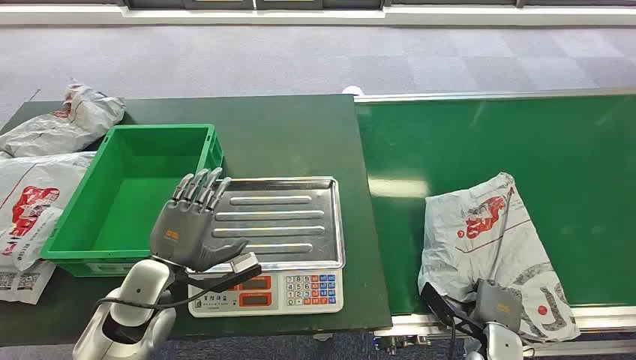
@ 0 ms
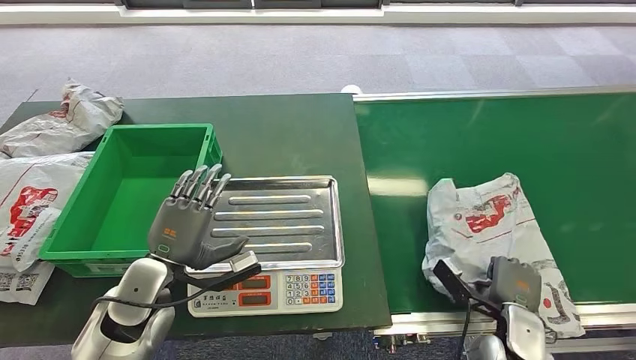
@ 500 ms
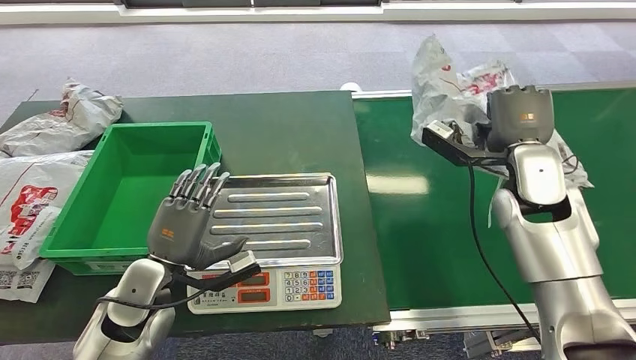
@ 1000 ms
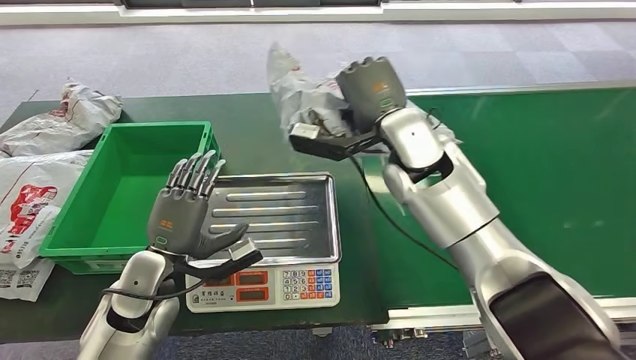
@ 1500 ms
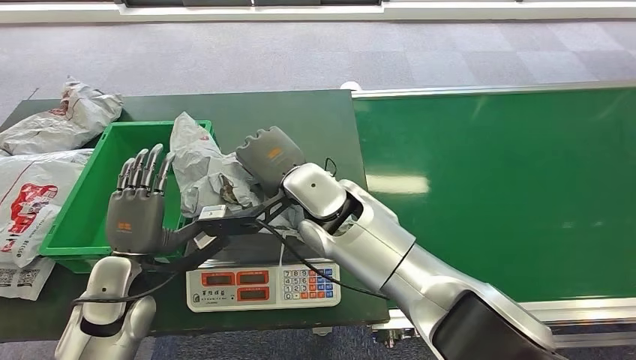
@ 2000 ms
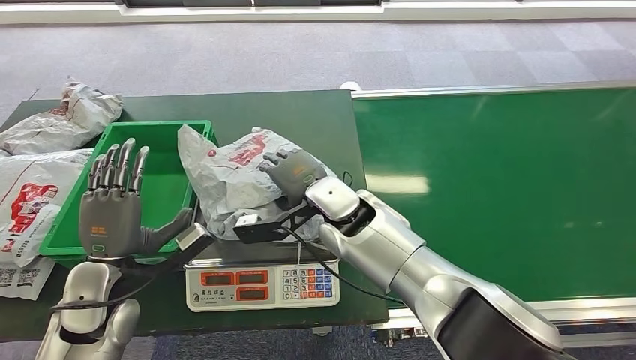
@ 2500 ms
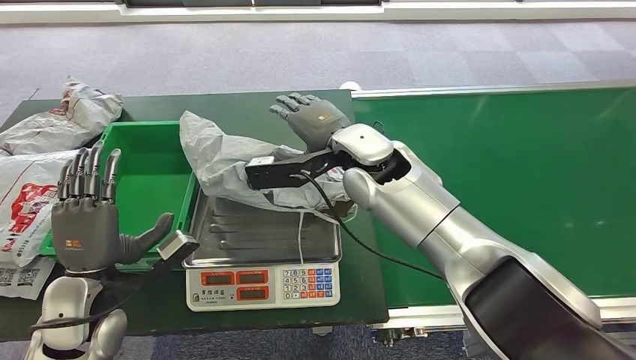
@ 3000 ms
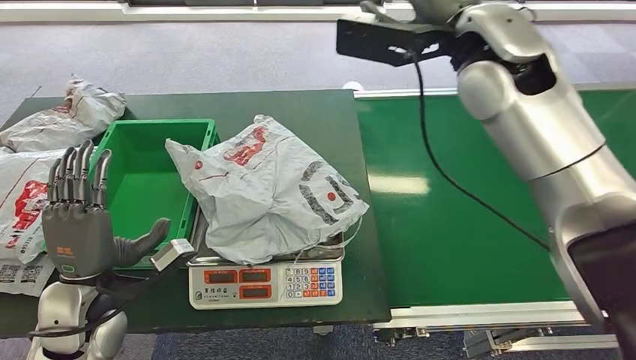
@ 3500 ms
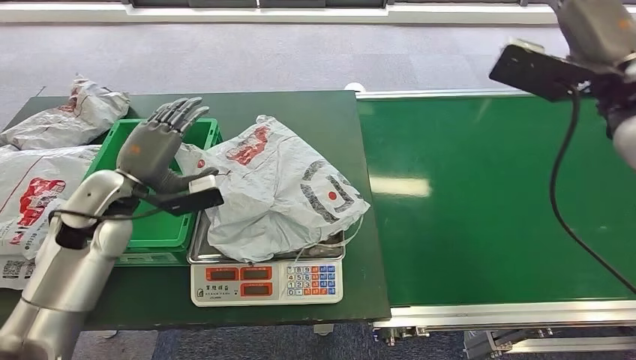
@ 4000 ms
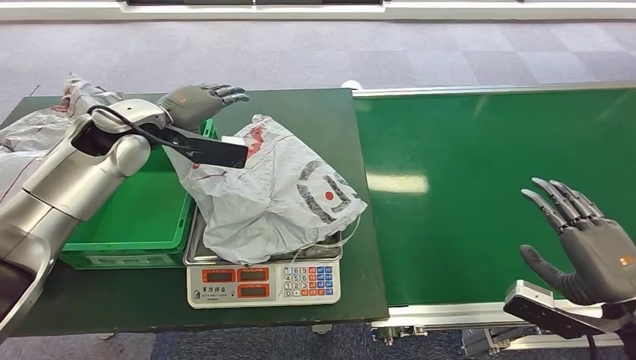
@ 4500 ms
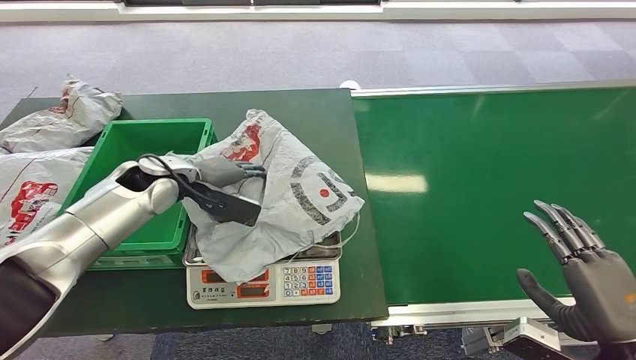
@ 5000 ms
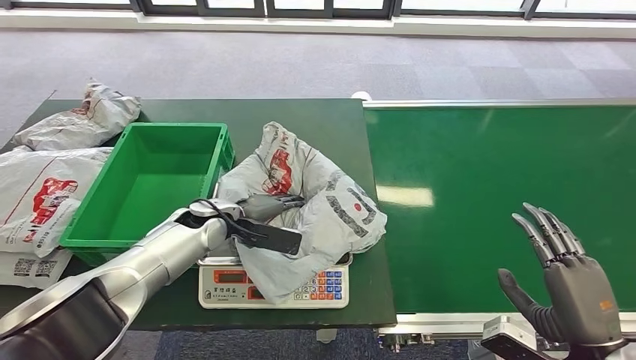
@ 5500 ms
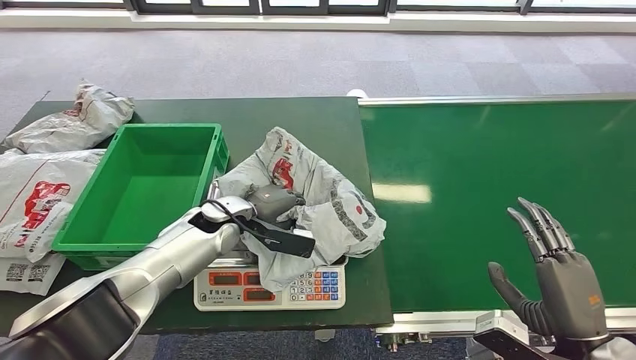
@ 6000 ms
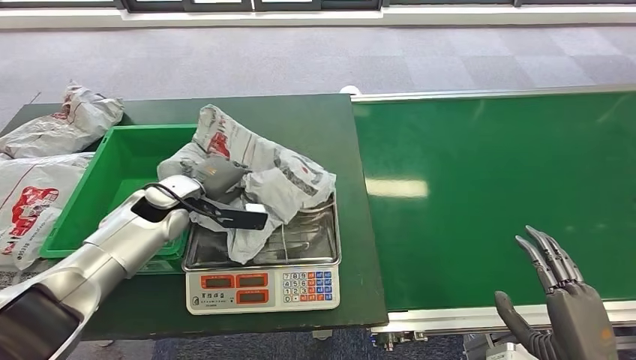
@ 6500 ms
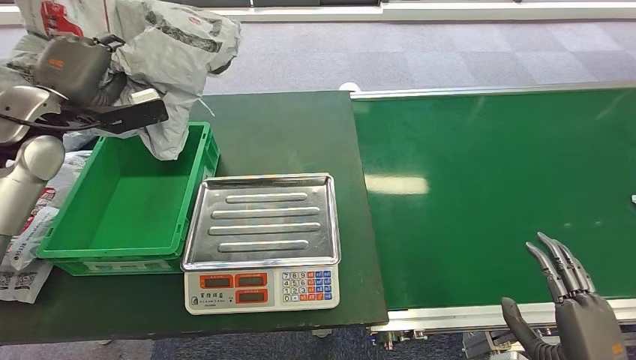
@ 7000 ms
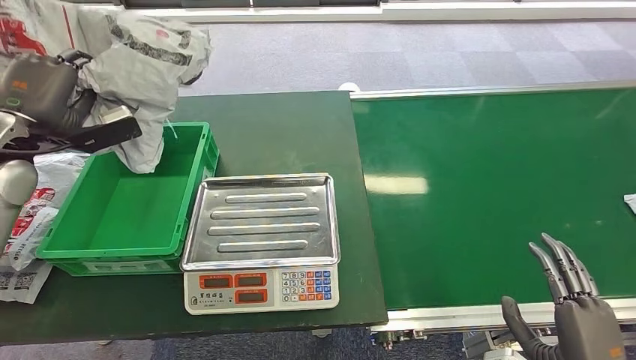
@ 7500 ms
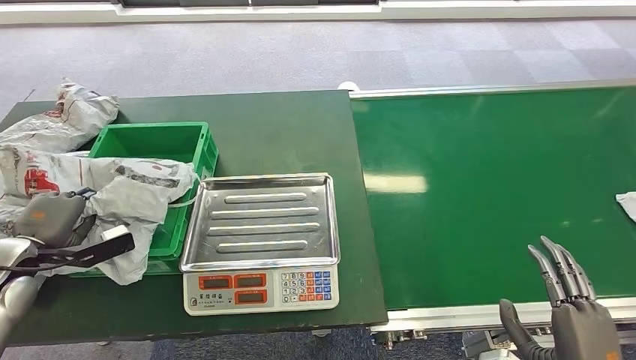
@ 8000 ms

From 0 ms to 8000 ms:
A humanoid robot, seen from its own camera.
Step, from 0 ms to 1000 ms: Pick up the package from the conveyor belt.
Step, from 1500 ms to 3500 ms: Place the package onto the inbound machine.
Step, from 4000 ms to 6500 ms: Pick up the package from the inbound machine.
Step, from 7000 ms to 8000 ms: Place the package into the parcel locker.

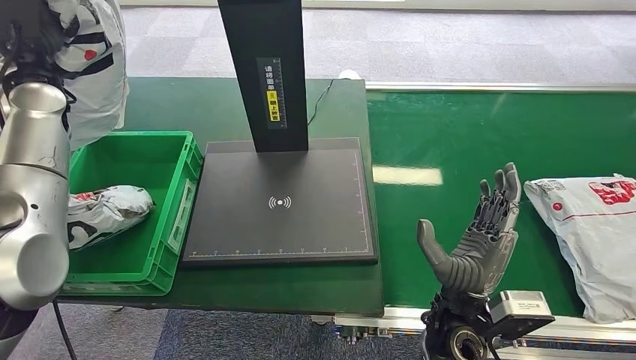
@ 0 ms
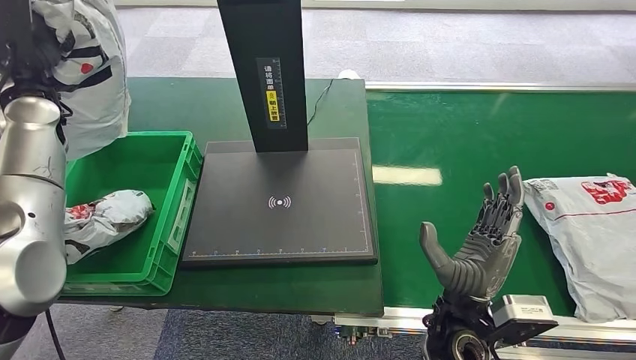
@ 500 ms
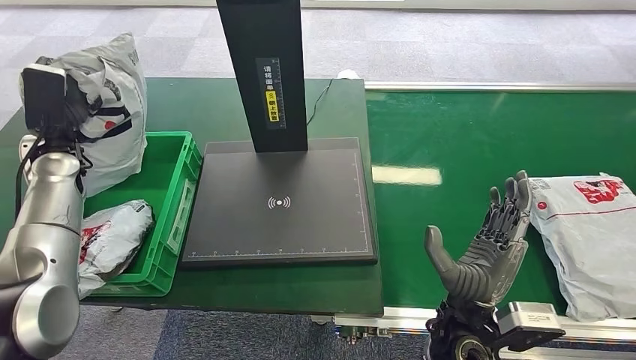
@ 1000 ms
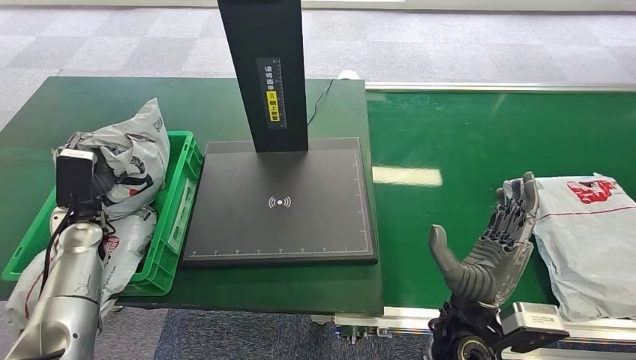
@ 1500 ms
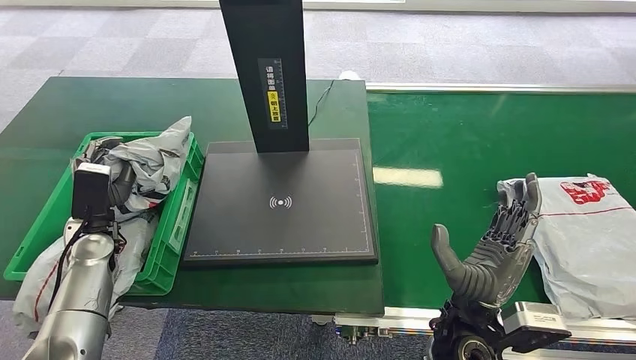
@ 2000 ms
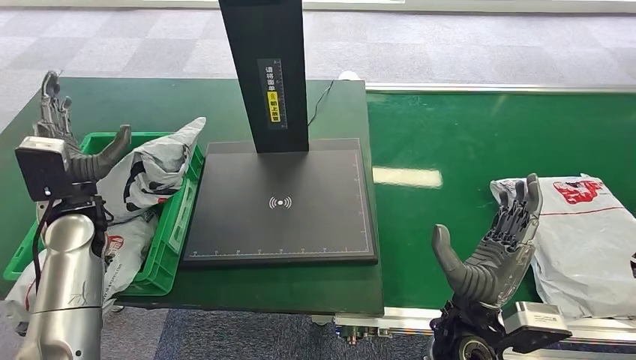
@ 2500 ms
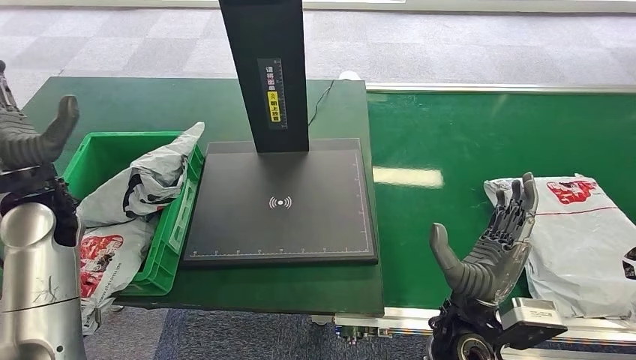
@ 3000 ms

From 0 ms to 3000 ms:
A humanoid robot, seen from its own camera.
From 1500 ms to 3000 ms: The left hand travels upward by some 10 cm.
